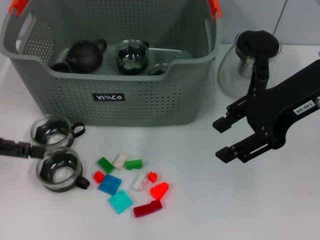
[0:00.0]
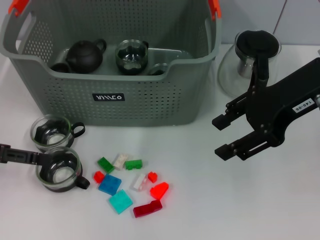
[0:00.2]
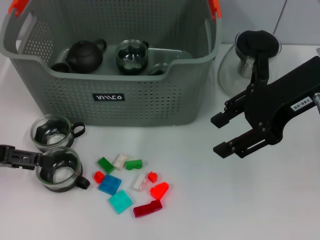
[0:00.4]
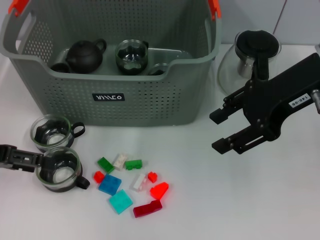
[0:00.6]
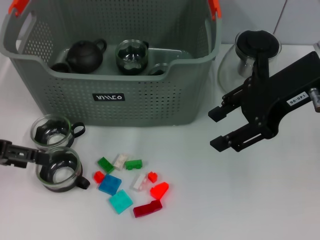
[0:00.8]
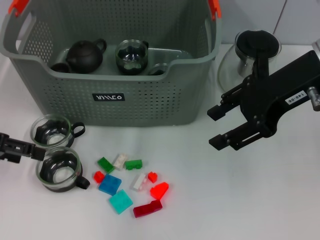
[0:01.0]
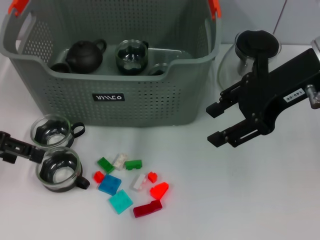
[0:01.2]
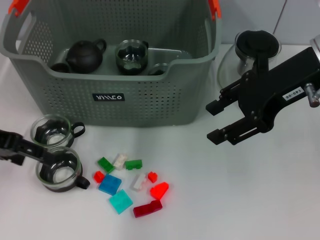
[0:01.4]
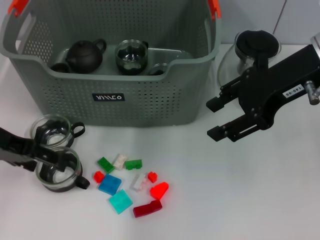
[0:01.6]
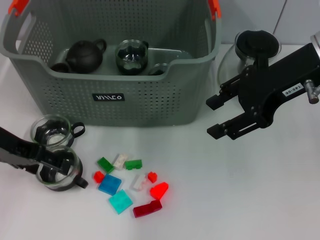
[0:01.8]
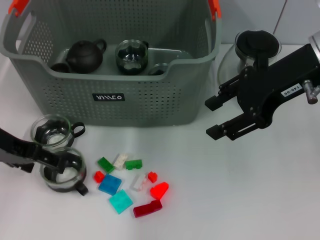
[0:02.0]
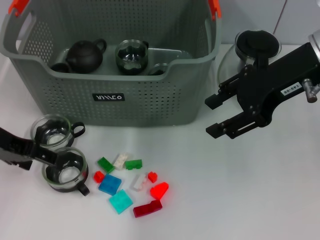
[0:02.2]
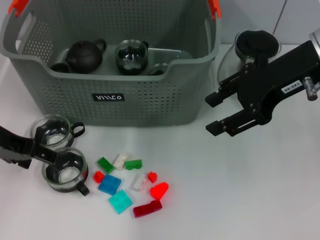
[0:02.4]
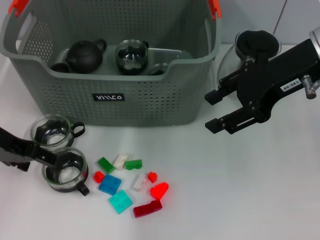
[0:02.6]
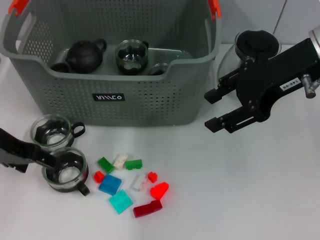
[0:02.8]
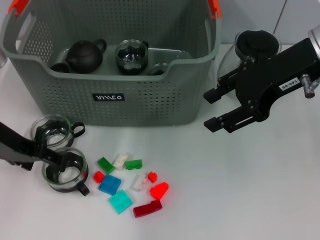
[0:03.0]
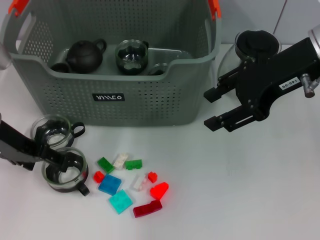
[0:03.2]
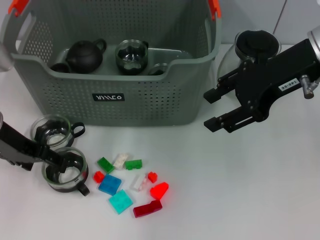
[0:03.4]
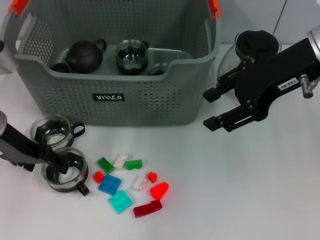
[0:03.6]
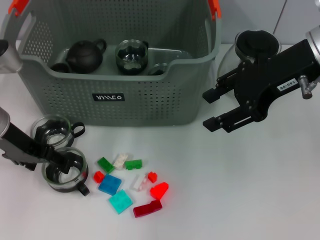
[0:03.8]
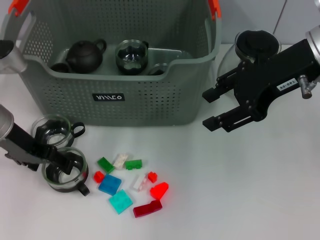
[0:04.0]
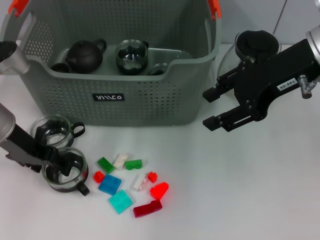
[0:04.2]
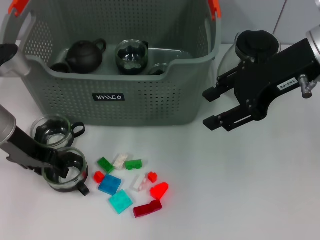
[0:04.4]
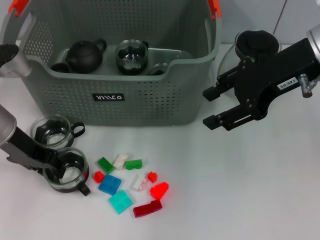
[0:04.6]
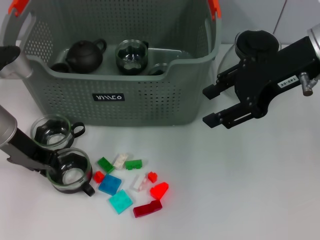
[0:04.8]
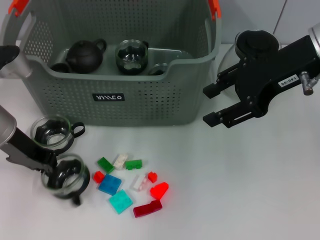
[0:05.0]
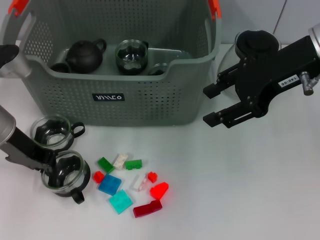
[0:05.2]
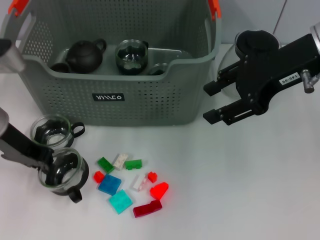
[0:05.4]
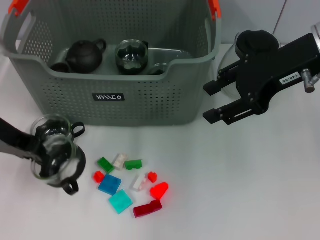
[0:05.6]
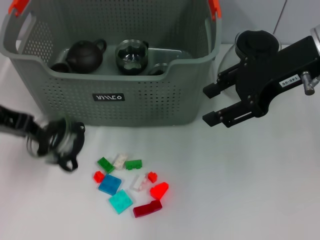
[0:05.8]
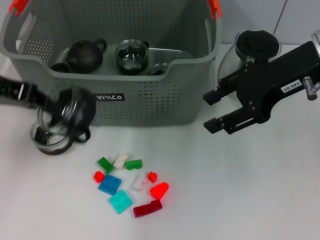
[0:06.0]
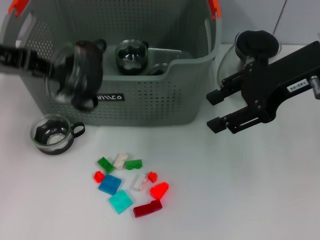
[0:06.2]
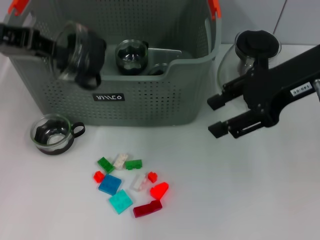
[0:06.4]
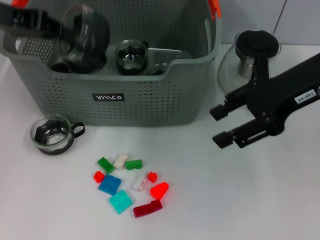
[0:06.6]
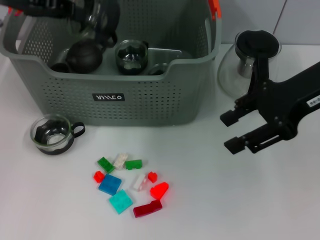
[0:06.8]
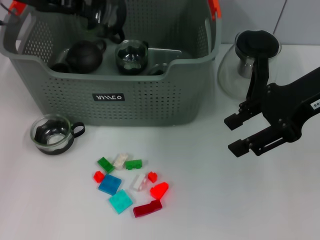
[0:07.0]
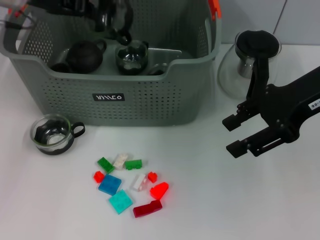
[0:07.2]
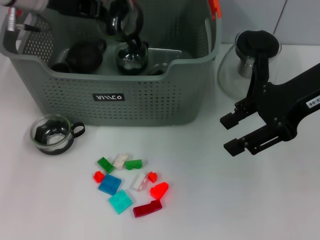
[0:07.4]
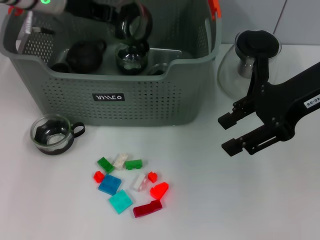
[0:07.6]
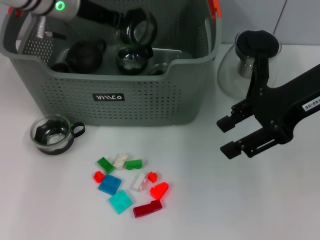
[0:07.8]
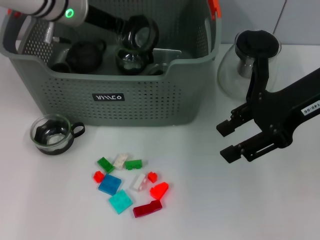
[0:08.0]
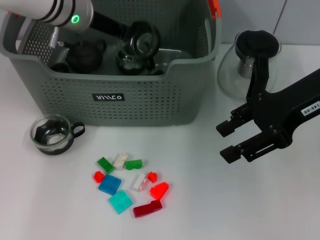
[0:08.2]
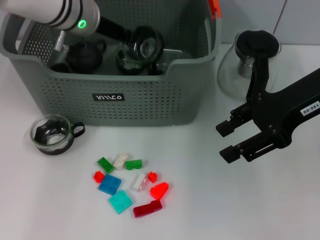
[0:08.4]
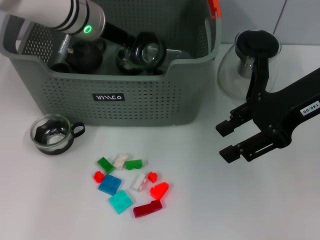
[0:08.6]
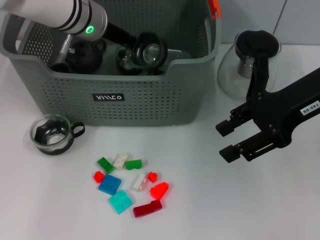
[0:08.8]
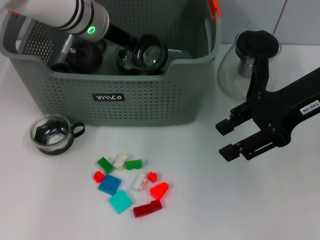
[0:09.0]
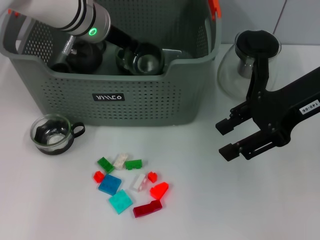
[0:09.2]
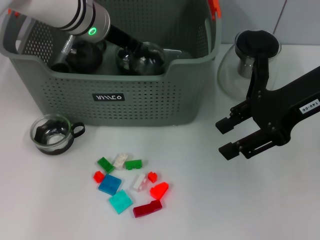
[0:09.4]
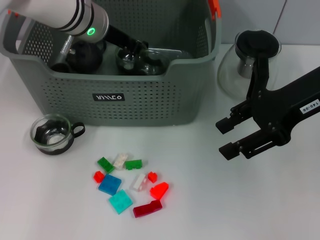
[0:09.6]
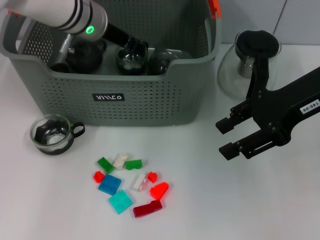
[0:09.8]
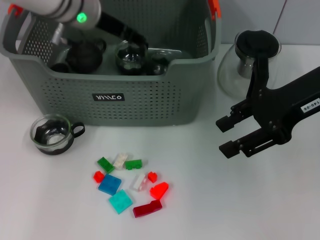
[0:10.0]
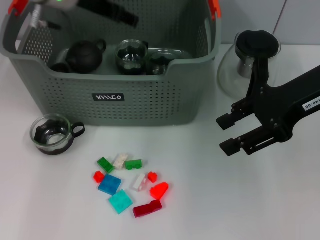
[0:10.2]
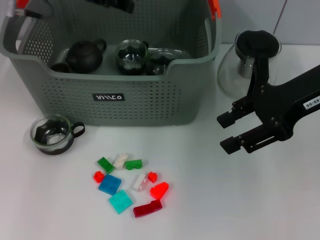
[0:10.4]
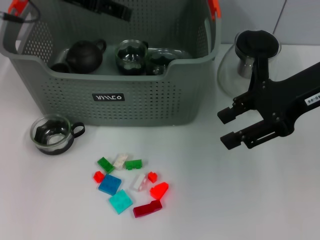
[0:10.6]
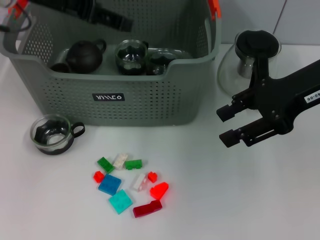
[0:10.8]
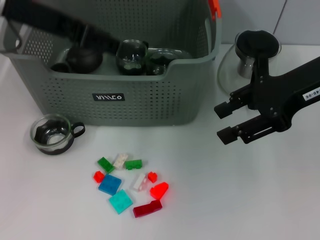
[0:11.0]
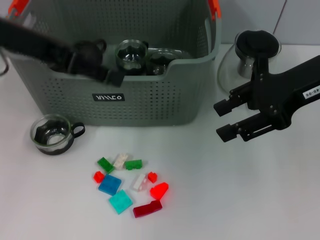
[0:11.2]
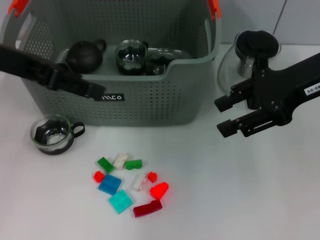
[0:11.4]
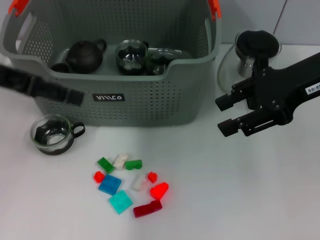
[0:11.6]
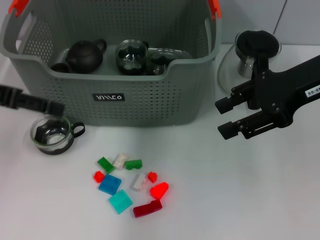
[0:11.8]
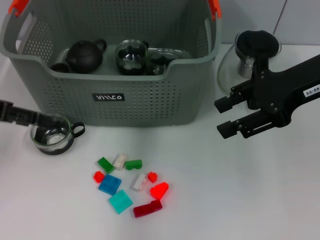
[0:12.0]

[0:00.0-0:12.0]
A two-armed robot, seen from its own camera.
Task of the whole recording: pick up the teacup on the table and place it into the storage bin, pick up the block on the table and place it into the storage bin.
Step, 0:00.0 to 0:05.4: Grasp the cup with left gripper.
Step, 0:05.8 to 0:09.8: Place the cup in the storage box with left gripper.
0:00.0 to 0:01.6: The left gripper moves to the right, approximately 5 cm.
0:01.6 to 0:04.4: The grippers stay close to where they were, moving slightly.
0:04.4 to 0:06.0: The left gripper travels upward by some 10 cm, and closes its fingers.
0:06.0 to 0:07.6: The left gripper shifts approximately 15 cm forward and to the right.
0:07.6 to 0:09.0: The left gripper moves to the right, some 5 cm.
0:09.0 to 0:10.4: The left gripper goes some 10 cm upward and to the left, and opens up.
0:10.4 to 0:12.0: The left gripper travels to the left, backward and downward by approximately 20 cm.

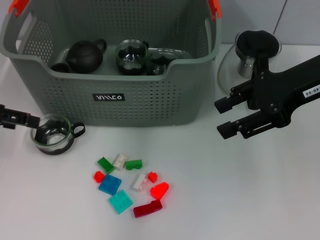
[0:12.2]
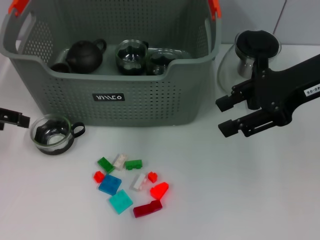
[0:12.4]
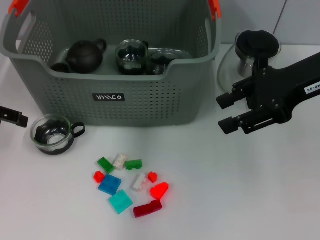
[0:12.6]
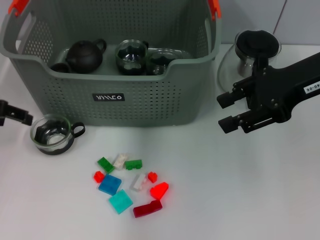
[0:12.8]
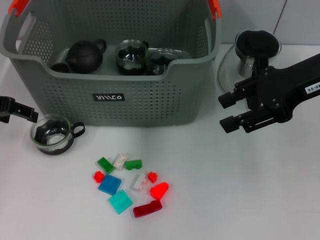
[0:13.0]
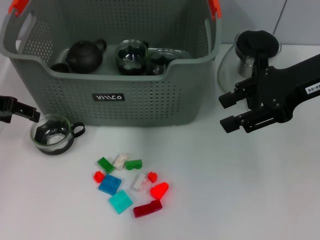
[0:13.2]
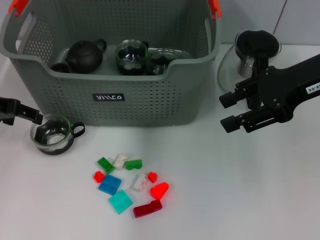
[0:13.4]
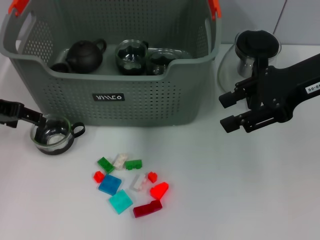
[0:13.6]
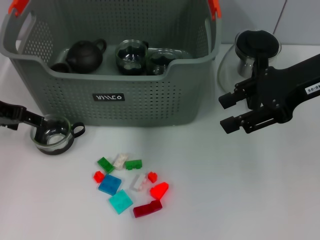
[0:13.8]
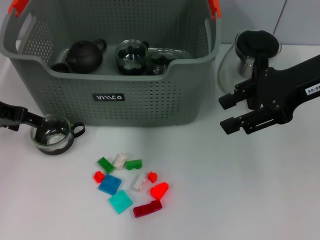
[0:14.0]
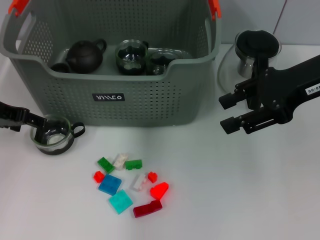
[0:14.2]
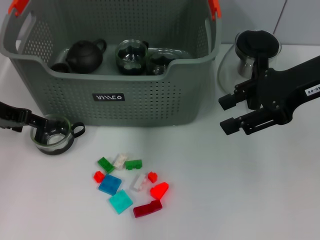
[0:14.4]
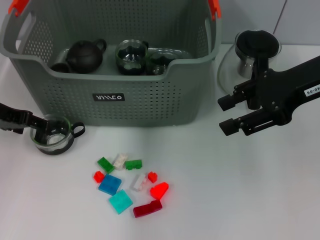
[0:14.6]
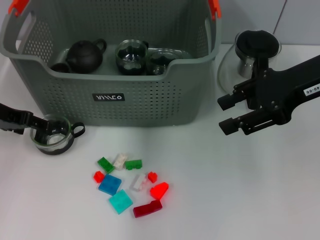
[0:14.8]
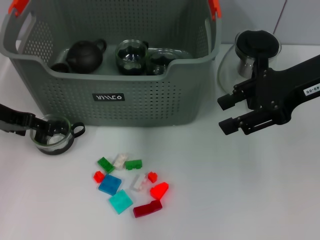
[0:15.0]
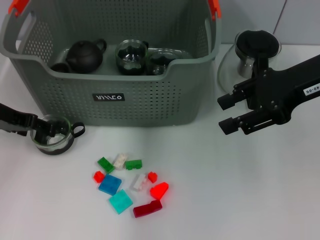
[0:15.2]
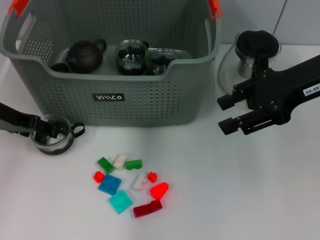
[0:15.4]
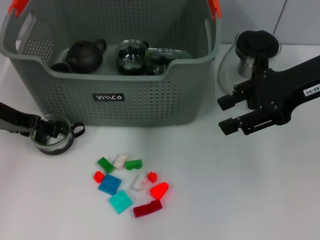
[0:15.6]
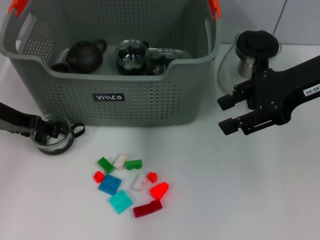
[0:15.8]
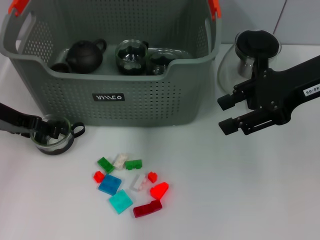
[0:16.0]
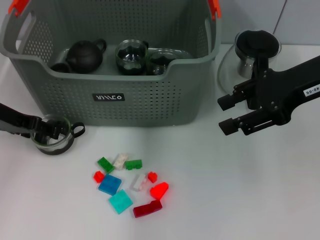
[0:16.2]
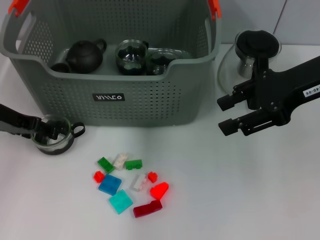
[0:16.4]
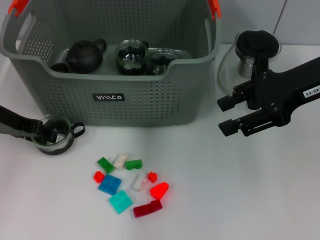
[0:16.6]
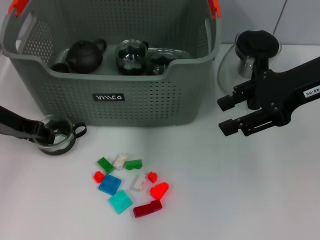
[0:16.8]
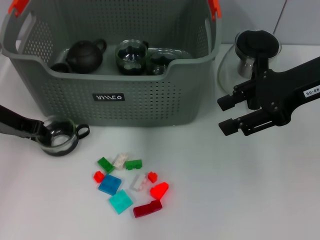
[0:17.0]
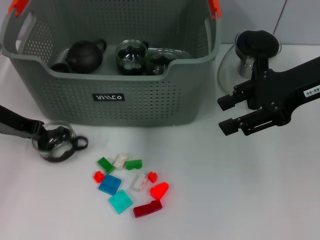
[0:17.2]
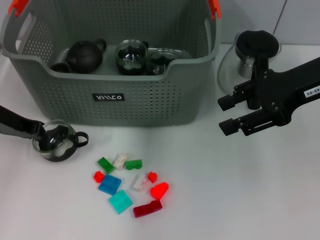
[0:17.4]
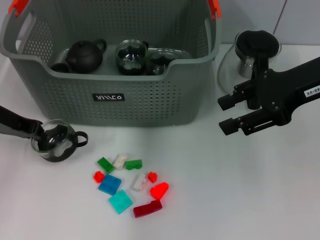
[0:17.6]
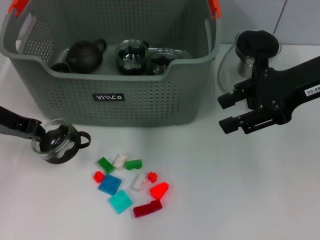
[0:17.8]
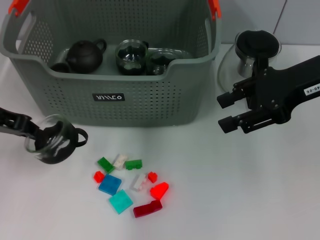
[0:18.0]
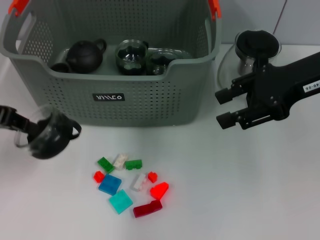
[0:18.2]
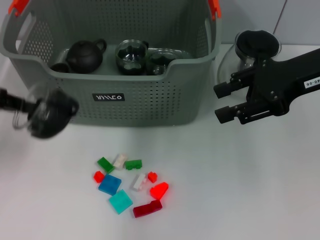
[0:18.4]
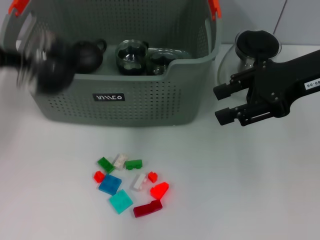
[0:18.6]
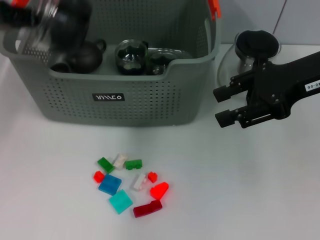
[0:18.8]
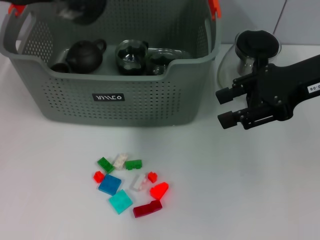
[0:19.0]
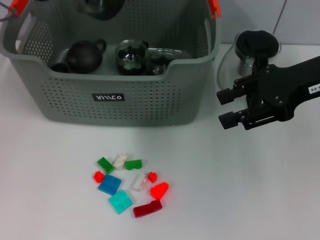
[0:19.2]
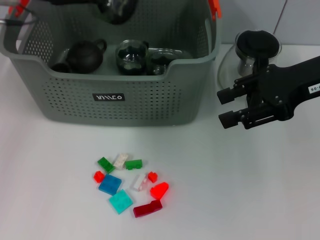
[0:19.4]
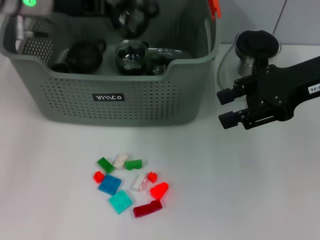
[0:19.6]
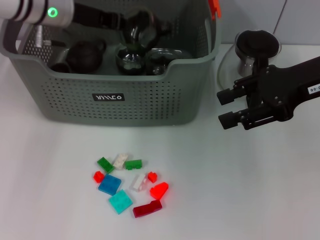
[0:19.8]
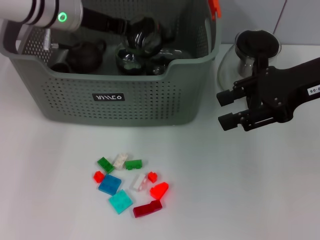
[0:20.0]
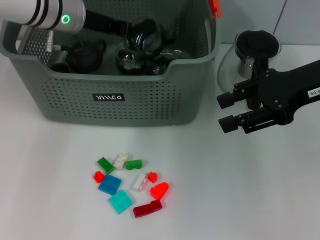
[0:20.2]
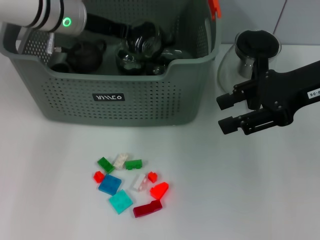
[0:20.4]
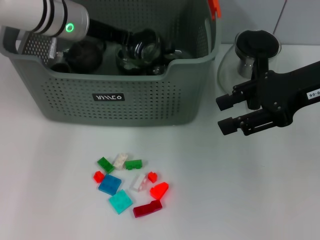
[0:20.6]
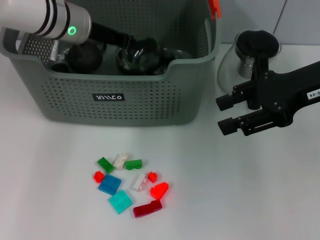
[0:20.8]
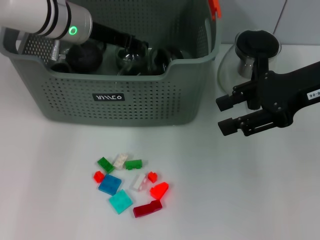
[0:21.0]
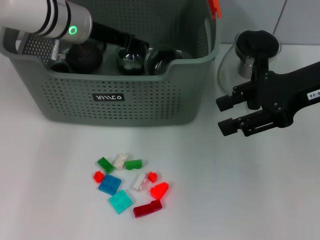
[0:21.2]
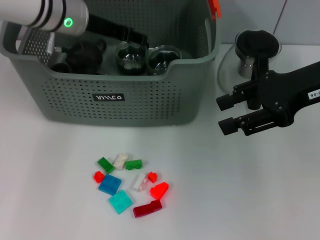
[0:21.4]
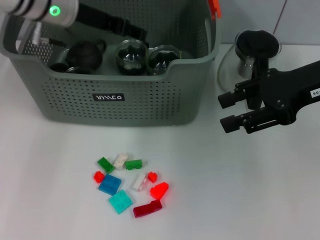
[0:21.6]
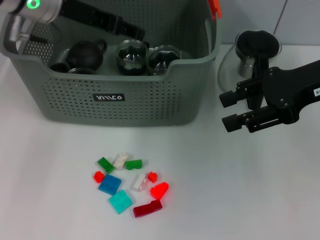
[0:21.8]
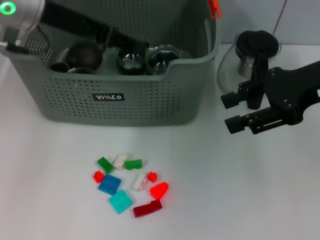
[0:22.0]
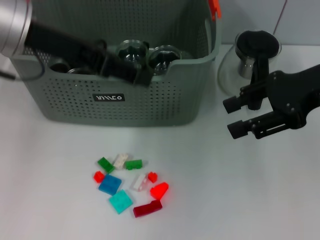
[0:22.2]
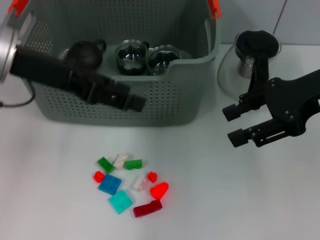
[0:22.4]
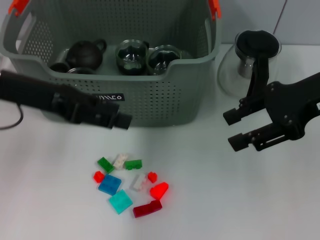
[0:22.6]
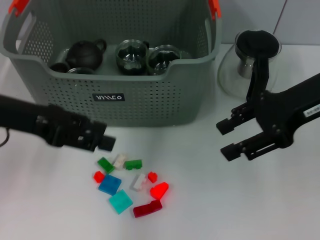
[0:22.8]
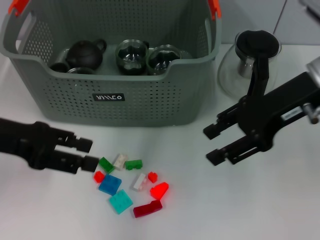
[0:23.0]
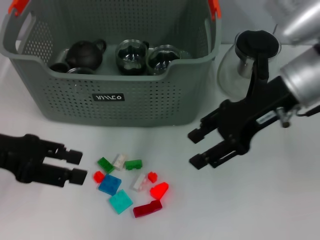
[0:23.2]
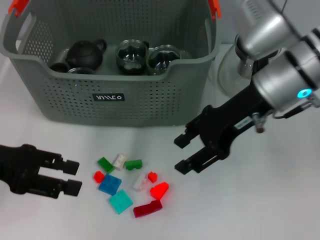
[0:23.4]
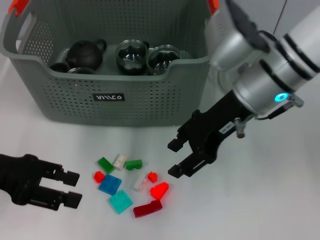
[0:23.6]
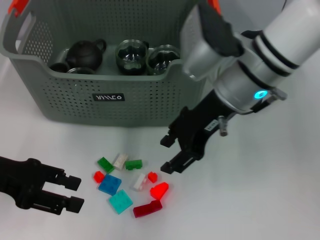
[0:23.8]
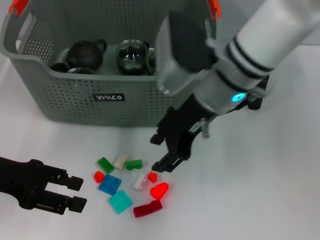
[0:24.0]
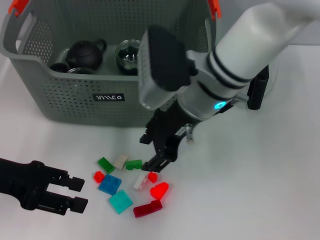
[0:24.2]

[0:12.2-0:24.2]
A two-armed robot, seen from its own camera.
Task of the whole recording: pick up the teacup on the table and place it into the storage bin, pick up the block on the table and place it into the storage bin.
Step, 0:12.2 to 0:18.0: Grasp the cup with left gripper.
Step, 0:18.2 to 0:21.2: Place the cup in the storage box with left gripper.
0:12.2 to 0:13.8: The left gripper moves about 5 cm.
0:13.8 to 0:15.2: The grippers move only a little.
0:15.2 to 0:16.6: Both grippers stay about where they are.
0:16.6 to 0:18.2: The left gripper shifts approximately 10 cm upward, and closes.
0:18.2 to 0:19.8: The left gripper shifts approximately 20 cm forward and to the right.
0:19.8 to 0:21.2: The grippers move only a little.
0:21.2 to 0:22.6: The left gripper travels backward and to the left by approximately 15 cm, and opens.
0:22.6 to 0:24.2: The right gripper moves to the left, roughly 20 cm. Meanwhile the left gripper heads downward and to the left, covering about 10 cm.
